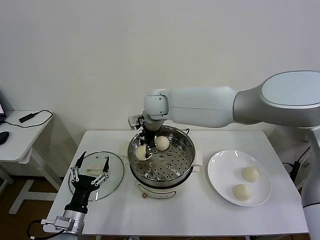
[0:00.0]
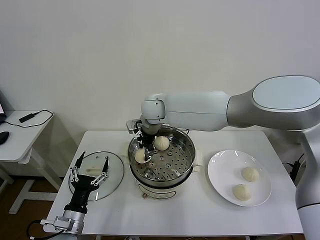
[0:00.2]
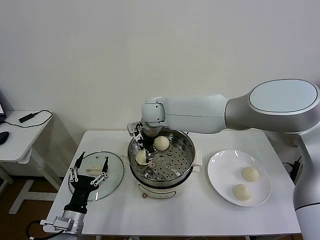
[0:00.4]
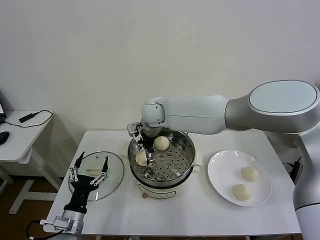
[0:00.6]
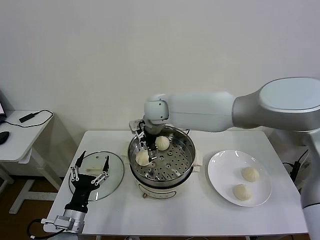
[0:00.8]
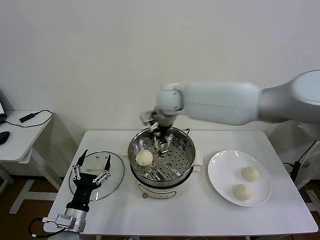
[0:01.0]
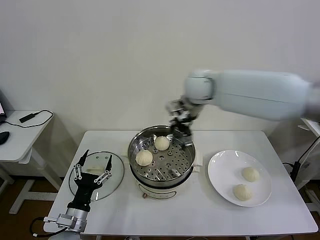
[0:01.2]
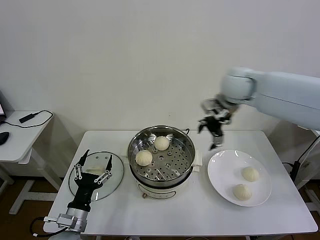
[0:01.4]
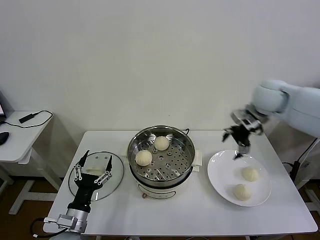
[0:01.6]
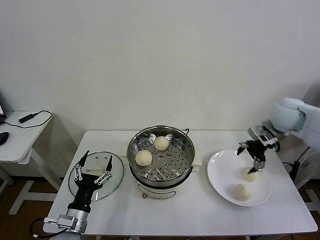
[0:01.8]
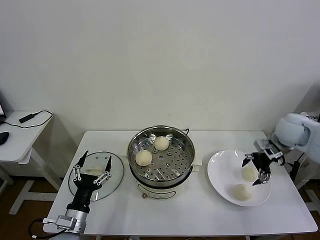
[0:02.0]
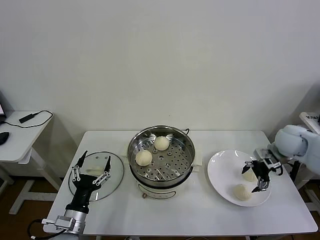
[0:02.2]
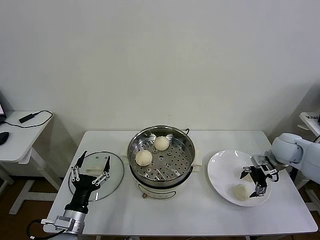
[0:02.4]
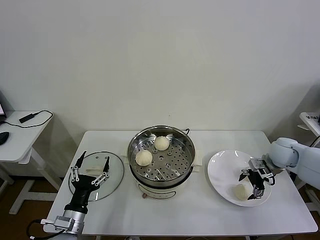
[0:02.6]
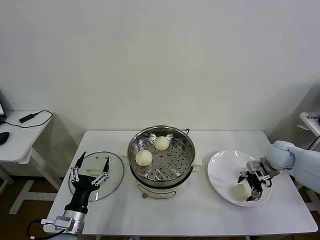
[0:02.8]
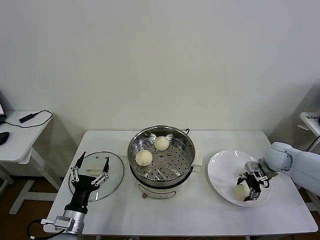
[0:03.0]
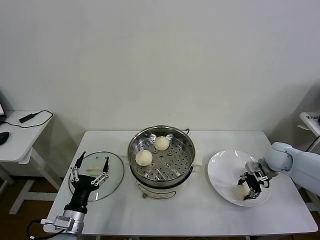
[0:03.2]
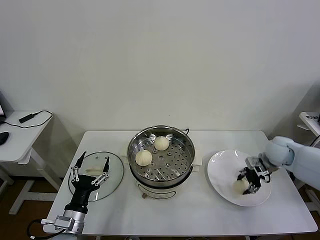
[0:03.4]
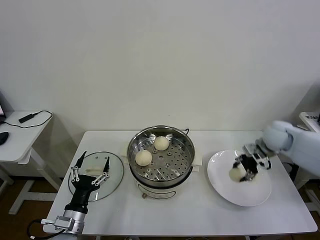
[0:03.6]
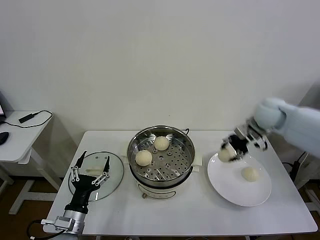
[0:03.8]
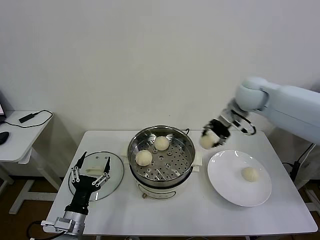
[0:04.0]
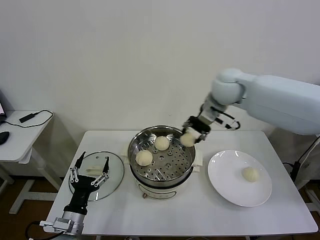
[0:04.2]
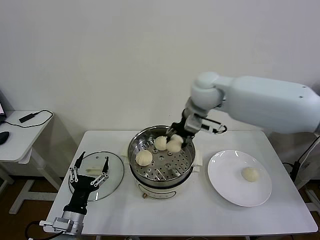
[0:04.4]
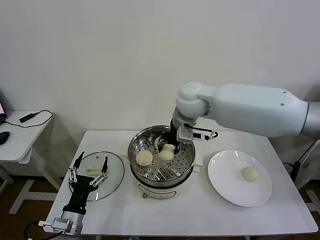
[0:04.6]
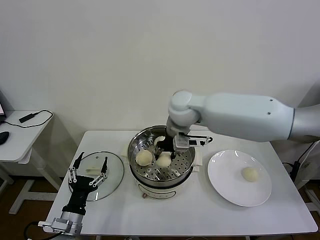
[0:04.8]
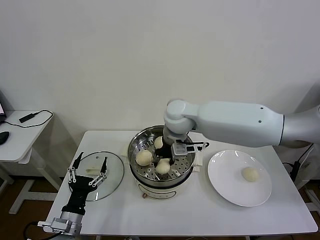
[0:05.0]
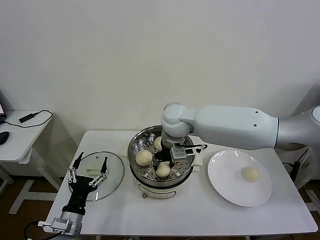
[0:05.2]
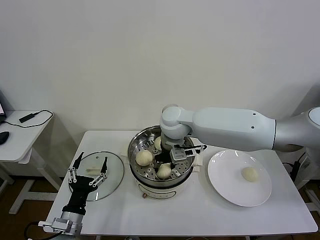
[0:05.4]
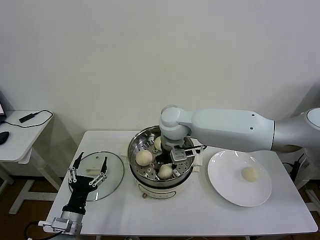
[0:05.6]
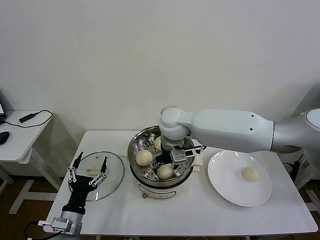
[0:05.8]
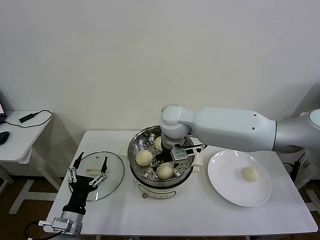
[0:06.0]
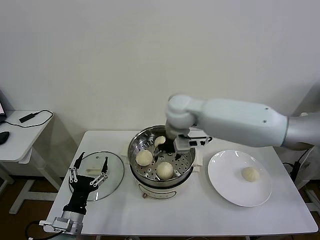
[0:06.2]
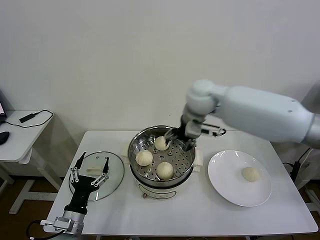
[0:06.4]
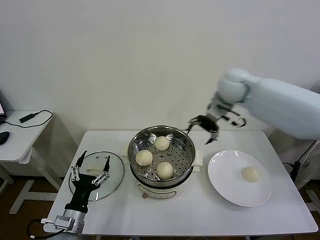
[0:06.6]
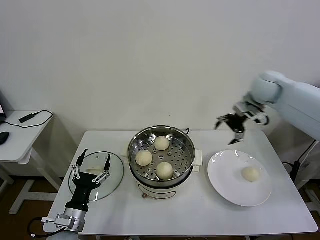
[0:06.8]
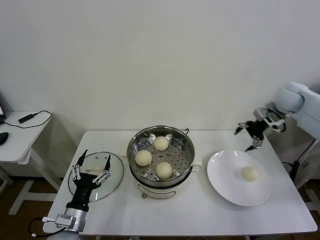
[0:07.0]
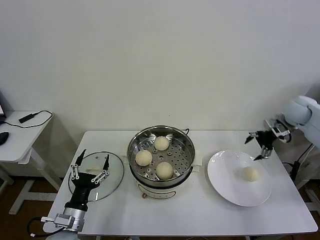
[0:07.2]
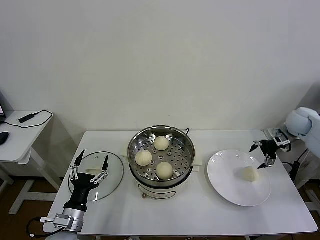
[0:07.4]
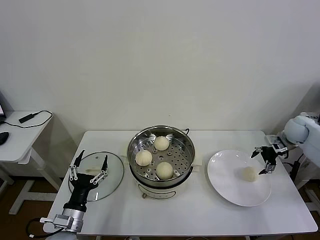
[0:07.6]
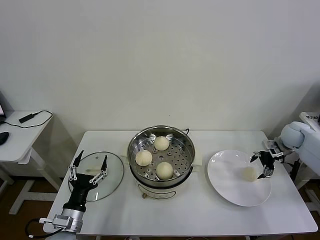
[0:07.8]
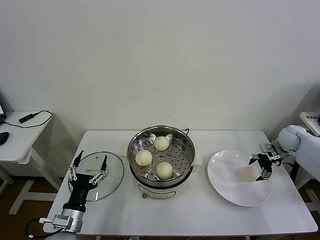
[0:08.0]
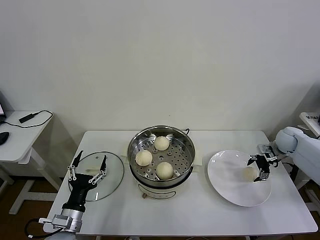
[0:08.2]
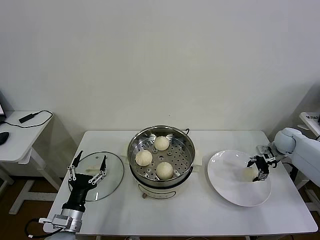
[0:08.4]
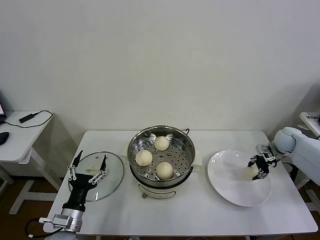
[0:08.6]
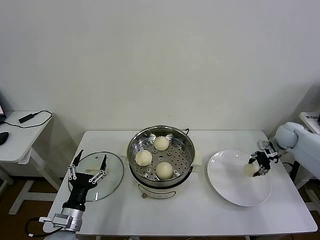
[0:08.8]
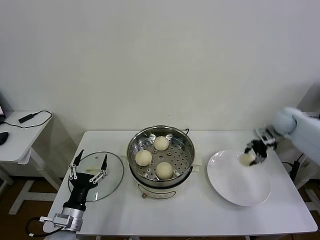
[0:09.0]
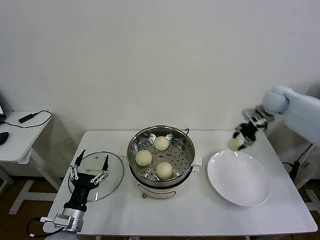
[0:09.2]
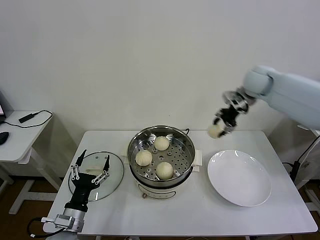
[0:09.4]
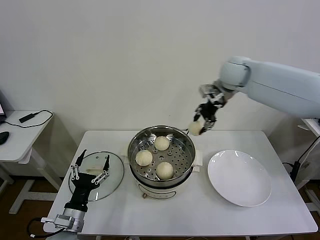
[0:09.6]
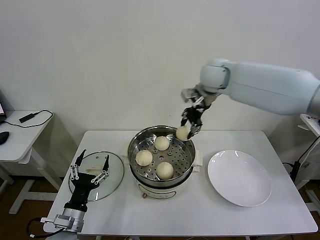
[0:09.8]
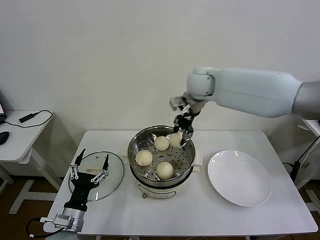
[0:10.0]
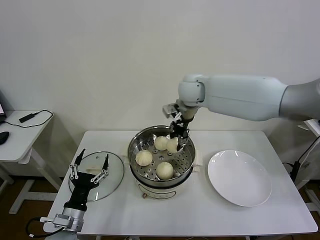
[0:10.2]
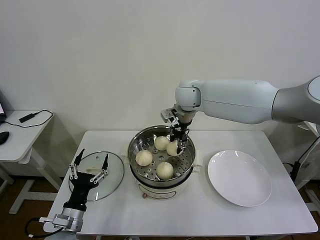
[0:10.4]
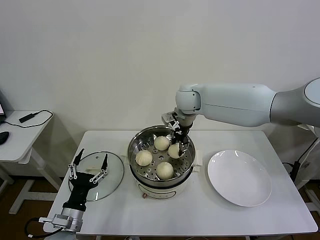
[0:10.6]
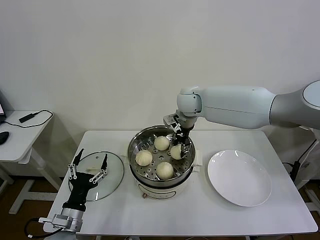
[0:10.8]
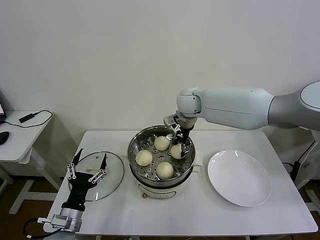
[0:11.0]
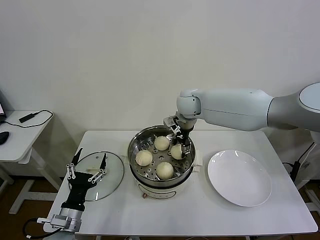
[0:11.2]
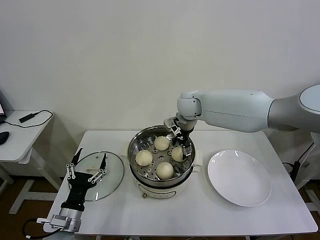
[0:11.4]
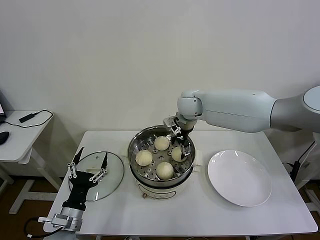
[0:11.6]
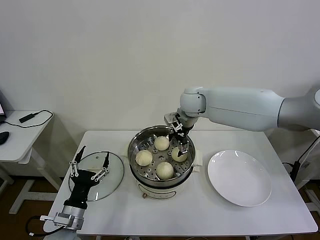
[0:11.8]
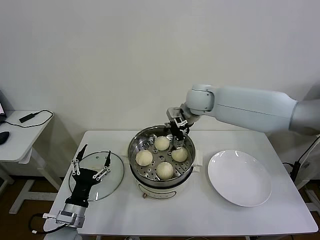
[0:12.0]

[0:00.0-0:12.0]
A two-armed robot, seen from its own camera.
Task of the whole recording: take steamed baozi put them in steamer then cover it.
Step, 0:00.8 to 0:03.2: Grasp the baozi in the plate with right gripper.
Step, 0:03.4 to 0:05.8: Place the baozi on the steamer with right gripper.
Step, 0:06.0 to 0:08.6: Grasp the baozi in the plate with right gripper.
Step, 0:09.0 to 0:11.4: Place the baozi on the steamer with right gripper.
0:00.0 to 0:01.6: The right gripper travels to the right by some 35 cm, and opens.
0:01.6 to 0:03.0: The right gripper travels downward and to the right by roughly 25 cm, and closes its fingers.
0:03.0 to 0:04.4: The right gripper heads to the left and upward, covering roughly 35 cm, and closes its fingers.
0:04.4 to 0:06.0: The right gripper shifts approximately 10 cm to the left and downward, and opens.
0:06.0 to 0:07.6: The right gripper is displaced to the right by some 50 cm.
0:07.6 to 0:09.0: The right gripper closes its fingers.
0:09.0 to 0:10.4: The right gripper goes approximately 35 cm to the left.
0:10.4 to 0:12.0: The right gripper opens.

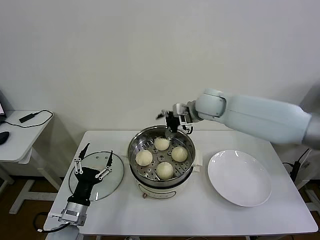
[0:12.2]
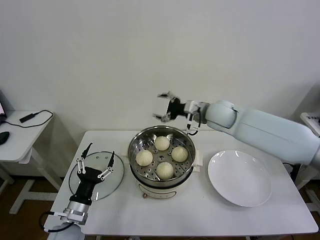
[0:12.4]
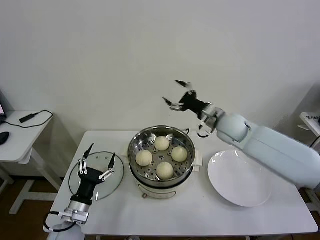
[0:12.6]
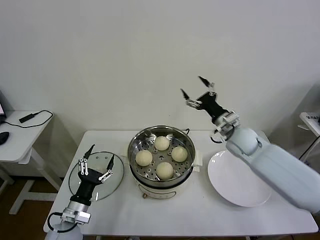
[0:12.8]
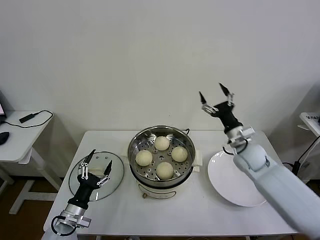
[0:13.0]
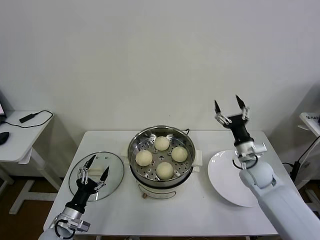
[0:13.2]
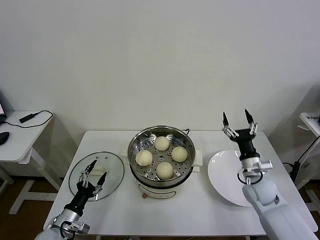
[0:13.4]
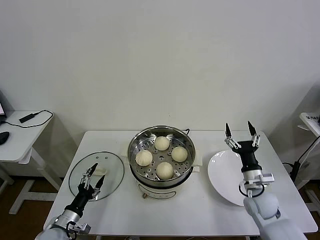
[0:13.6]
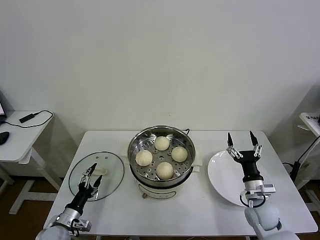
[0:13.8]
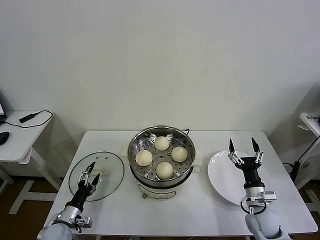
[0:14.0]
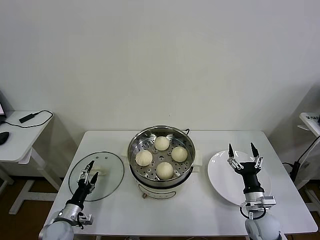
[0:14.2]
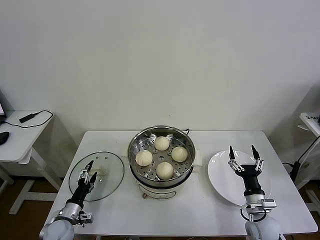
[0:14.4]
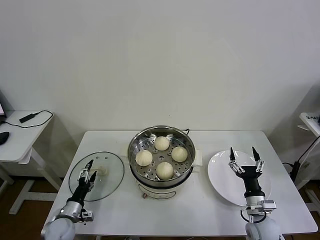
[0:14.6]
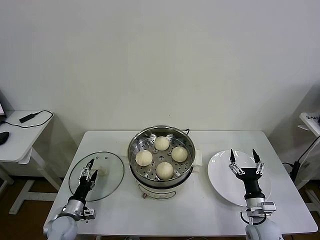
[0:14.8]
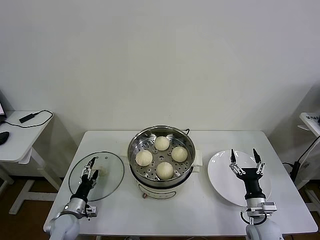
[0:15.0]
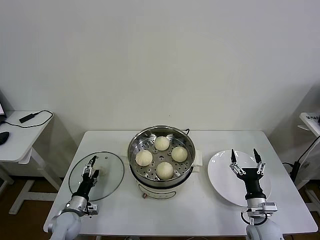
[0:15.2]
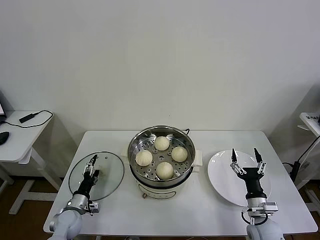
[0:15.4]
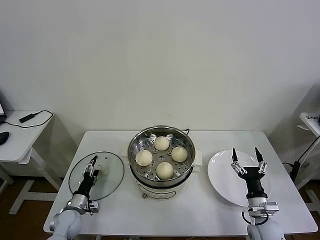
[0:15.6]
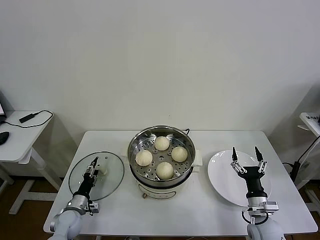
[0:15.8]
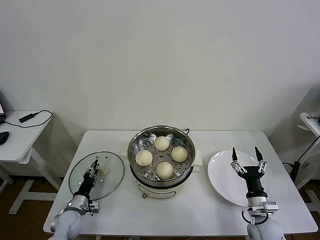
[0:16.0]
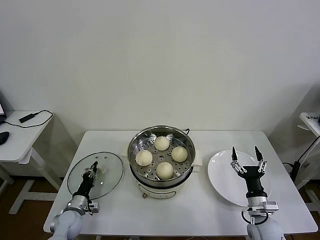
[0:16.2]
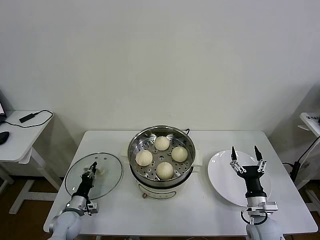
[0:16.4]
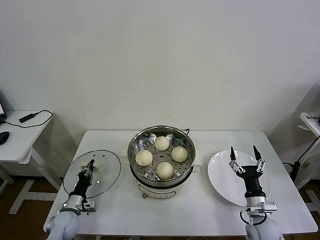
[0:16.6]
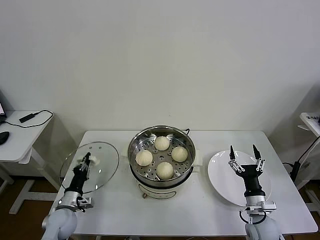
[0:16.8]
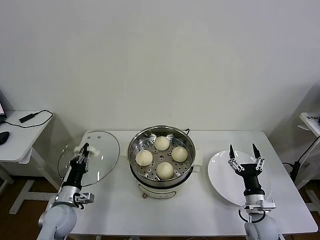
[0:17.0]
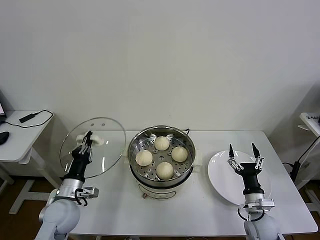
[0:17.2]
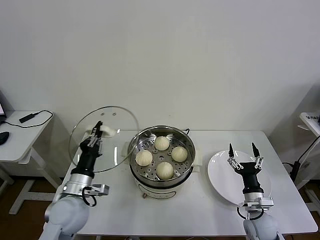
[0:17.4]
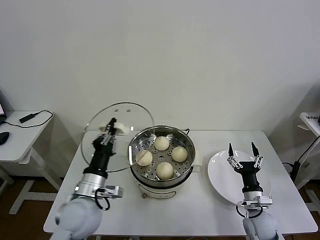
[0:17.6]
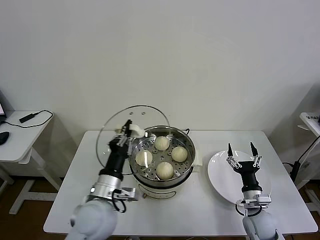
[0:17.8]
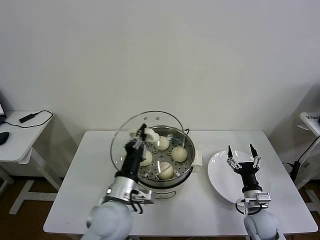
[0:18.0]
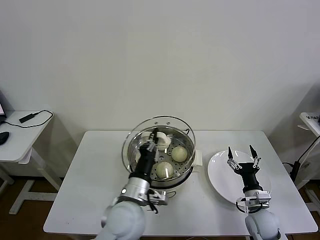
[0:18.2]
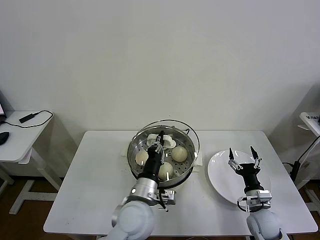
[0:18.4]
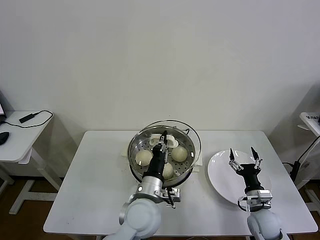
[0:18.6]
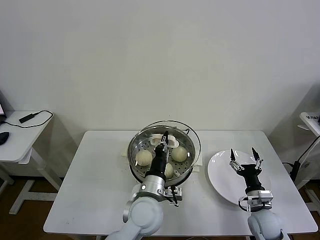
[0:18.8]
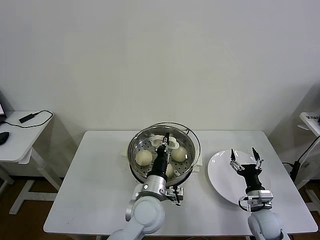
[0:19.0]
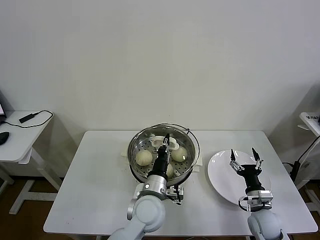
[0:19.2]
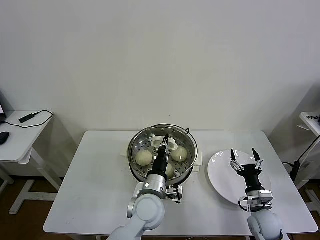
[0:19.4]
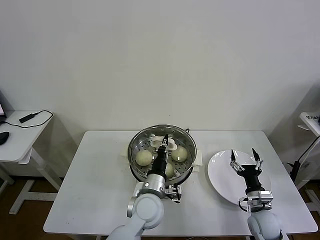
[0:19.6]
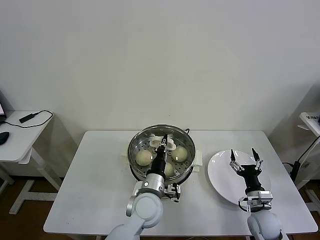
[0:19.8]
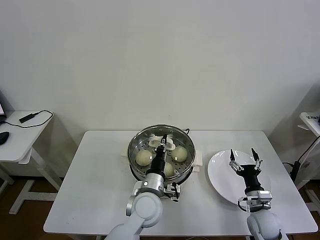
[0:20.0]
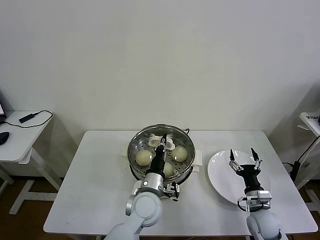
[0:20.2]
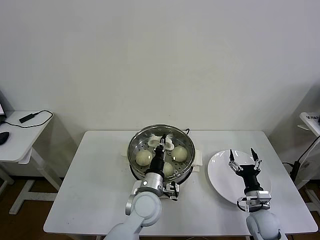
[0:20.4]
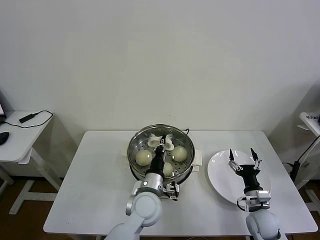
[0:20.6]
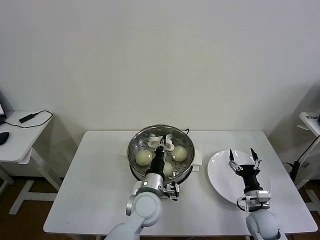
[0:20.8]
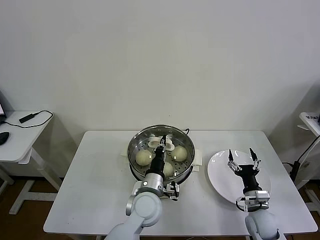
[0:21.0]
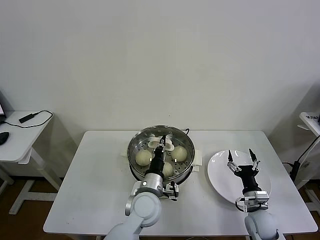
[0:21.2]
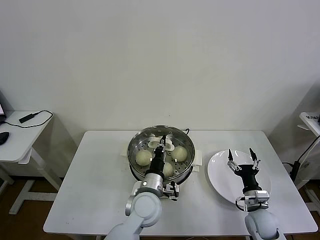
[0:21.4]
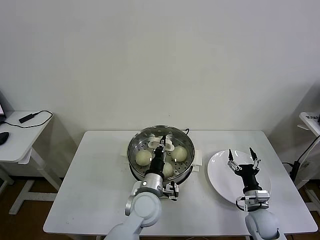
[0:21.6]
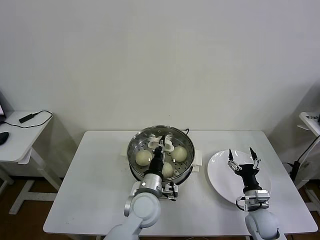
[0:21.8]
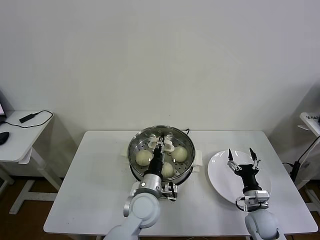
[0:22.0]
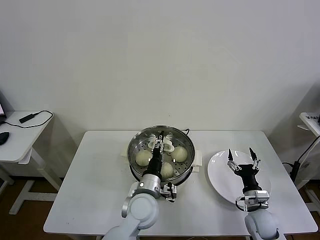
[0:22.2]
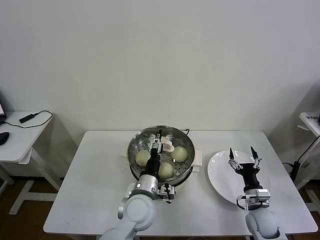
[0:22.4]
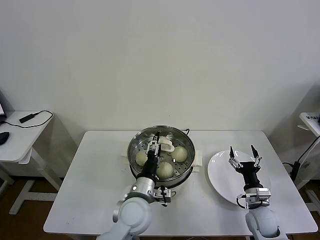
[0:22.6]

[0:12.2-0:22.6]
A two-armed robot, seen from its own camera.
Task of the whole recording: take steamed baozi put them in steamer then cover it.
Step, 0:12.2 to 0:16.4: Grasp the pot lid with left gripper.
Step, 0:16.6 to 0:22.2: Place the pot lid on the steamer with left gripper.
0:12.2 to 0:13.6: The left gripper travels downward and to the left by about 10 cm, while the right gripper goes approximately 35 cm downward, backward and to the right.
0:13.6 to 0:15.2: The right gripper goes some 10 cm backward and downward, while the left gripper heads forward, covering about 5 cm.
0:15.2 to 0:16.6: The left gripper closes.
0:16.6 to 0:18.2: The left gripper heads to the right and upward, covering about 35 cm.
0:18.2 to 0:19.6: The left gripper goes about 10 cm downward and to the right.
0:19.6 to 0:21.2: The two grippers keep their place.
0:21.2 to 0:22.6: The left gripper opens.
